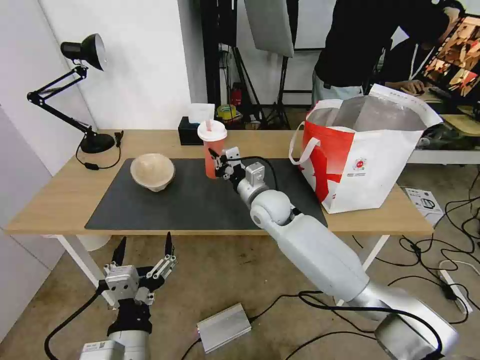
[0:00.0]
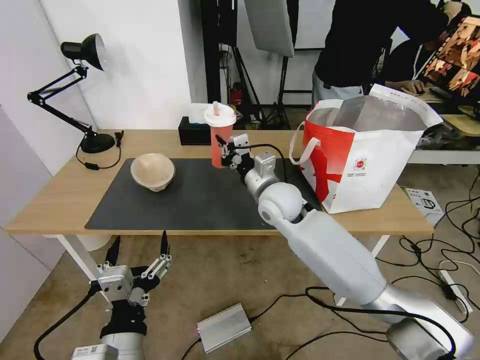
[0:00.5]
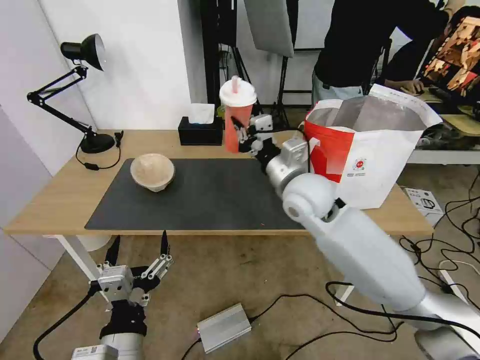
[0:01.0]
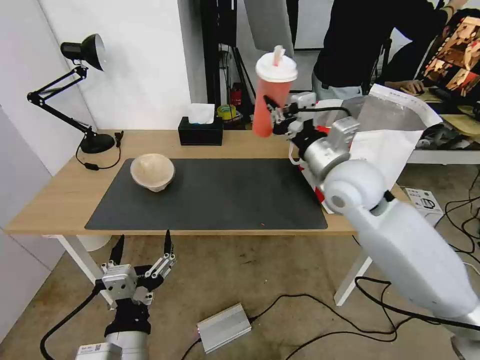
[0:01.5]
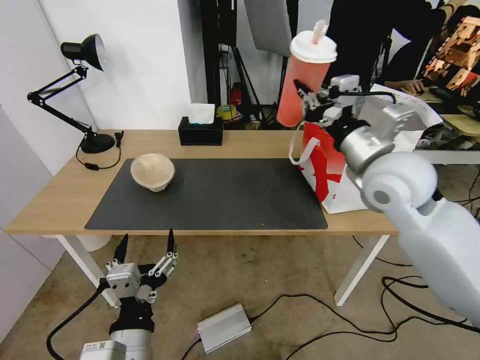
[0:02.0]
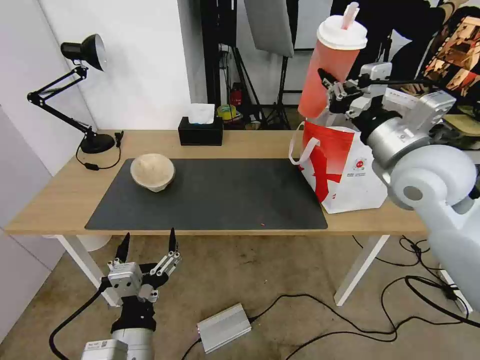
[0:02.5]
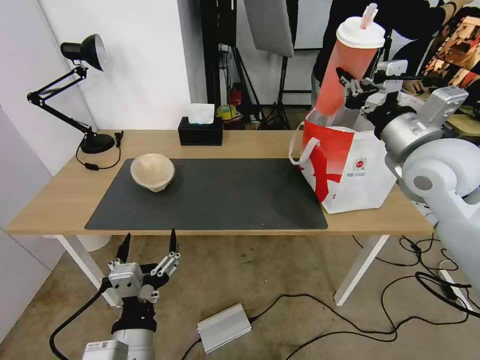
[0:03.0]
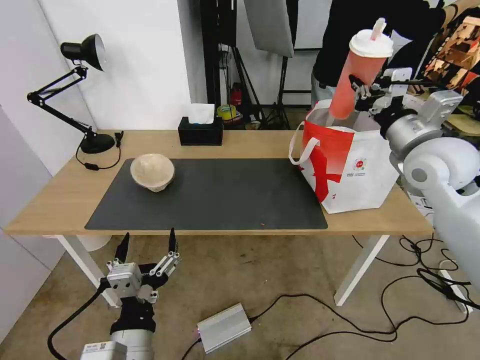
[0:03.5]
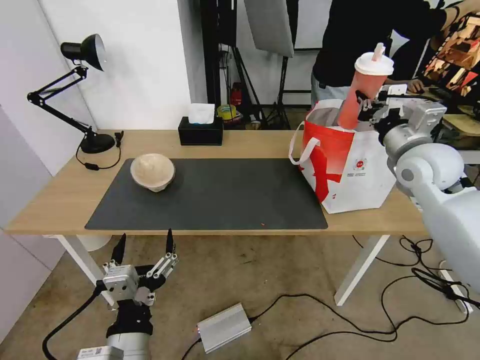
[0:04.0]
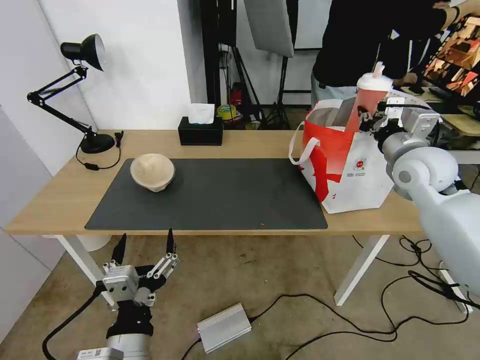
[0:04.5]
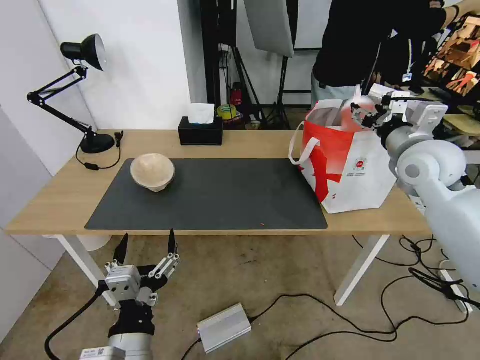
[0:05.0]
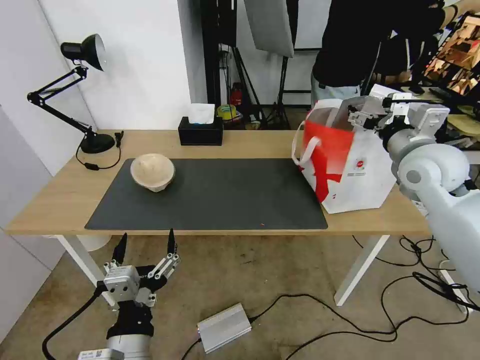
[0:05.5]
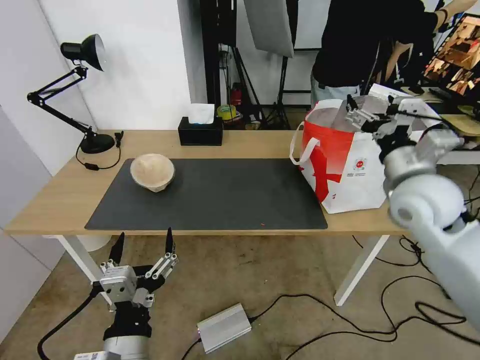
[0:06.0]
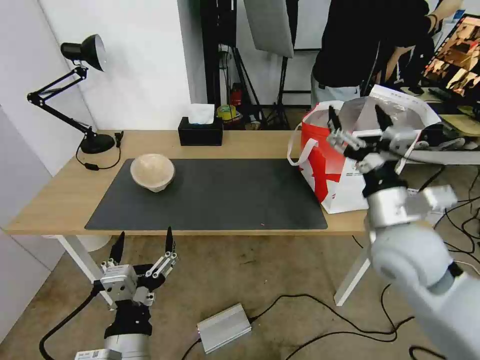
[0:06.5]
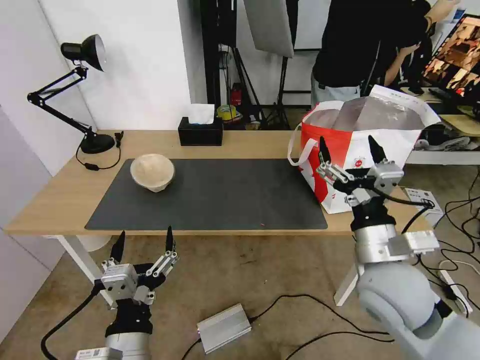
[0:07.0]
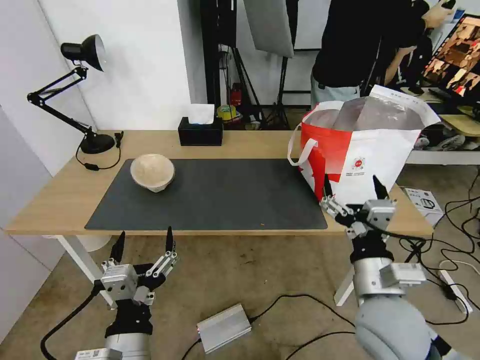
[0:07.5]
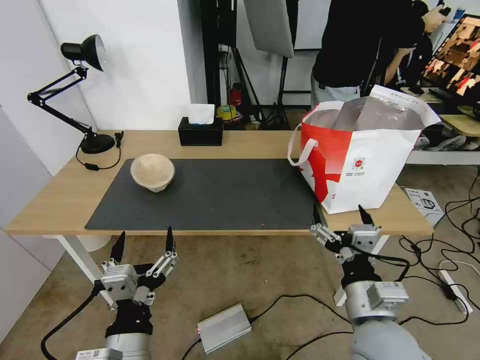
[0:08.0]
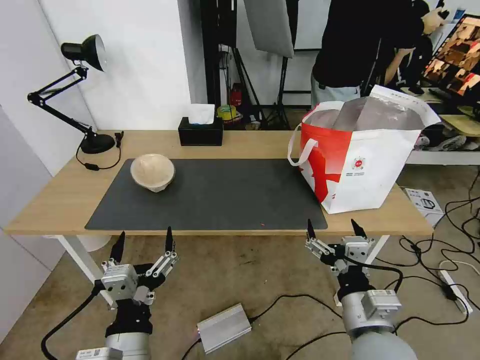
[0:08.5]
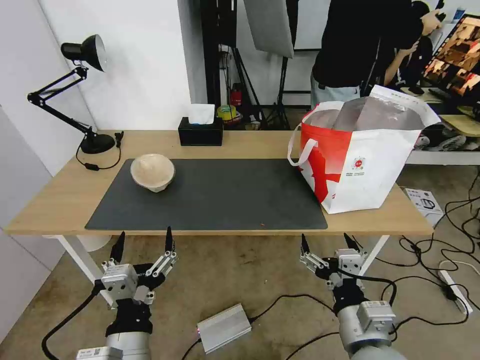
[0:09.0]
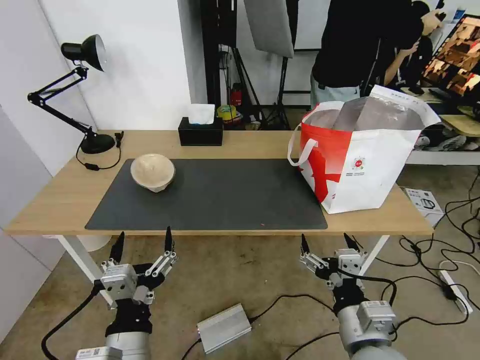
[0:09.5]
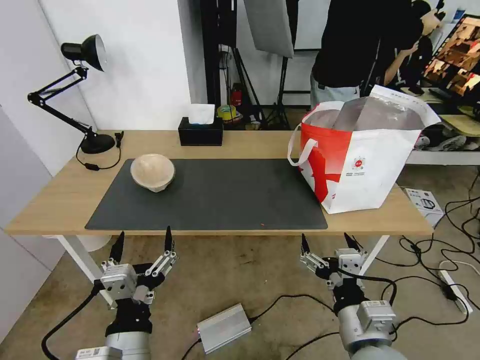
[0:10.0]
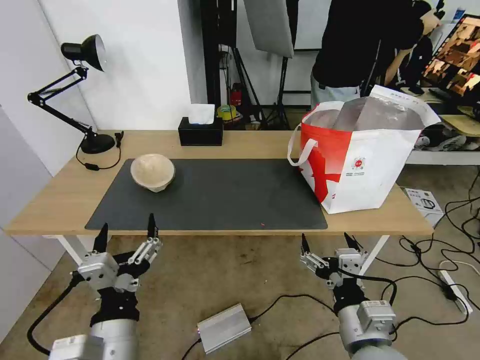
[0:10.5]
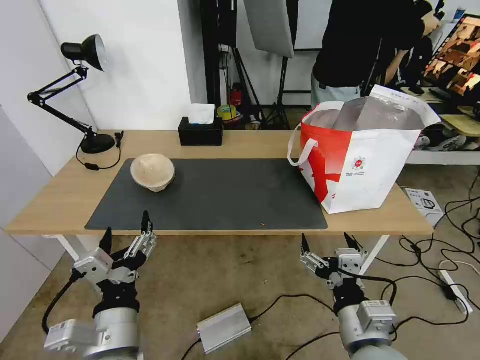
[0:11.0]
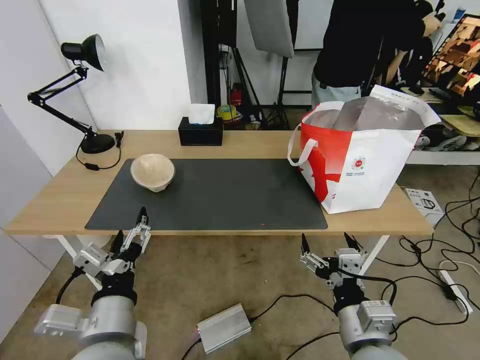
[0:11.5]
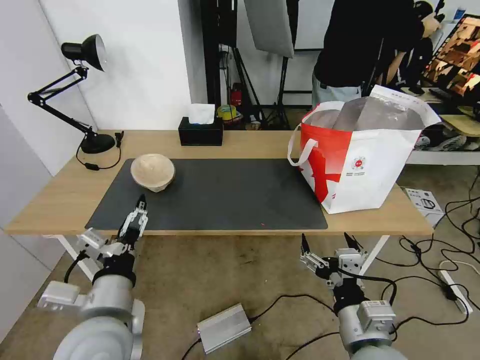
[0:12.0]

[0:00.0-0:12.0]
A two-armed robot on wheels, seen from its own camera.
Task of the whole recording: Pick up the trash from the table and place it into the takeout bag.
0:00.0 to 0:02.0: The right gripper shifts about 25 cm upward, to the right and backward.
0:02.0 to 0:04.0: The right gripper moves to the right and forward, about 15 cm.
0:04.0 to 0:06.0: The right gripper ends up roughly 5 cm from where it was, and opens.
0:06.0 to 0:08.0: The right gripper goes roughly 30 cm backward, downward and to the left.
0:08.0 to 0:10.0: There are only small adjustments of the grippers.
0:10.0 to 0:12.0: The left gripper goes some 5 cm forward.

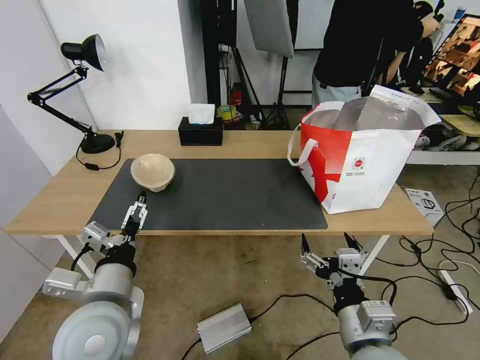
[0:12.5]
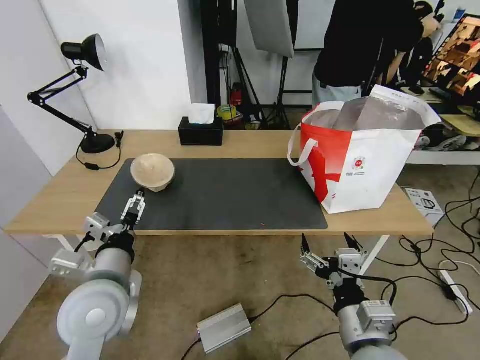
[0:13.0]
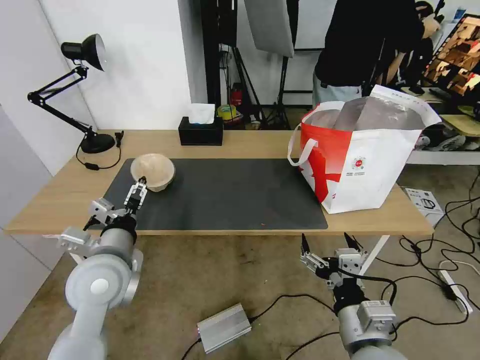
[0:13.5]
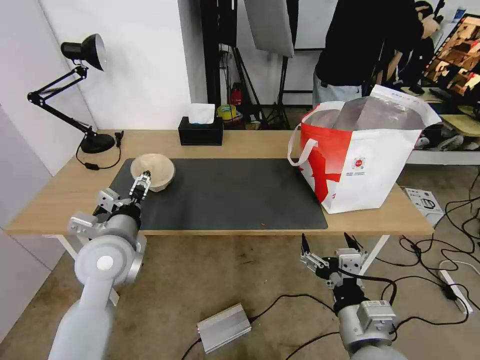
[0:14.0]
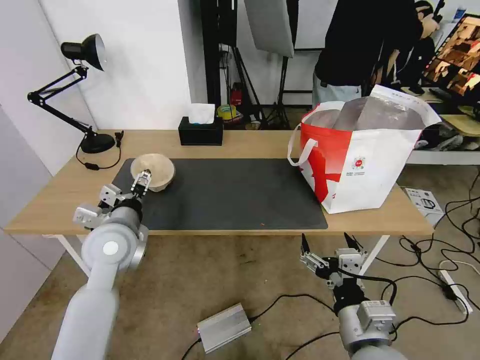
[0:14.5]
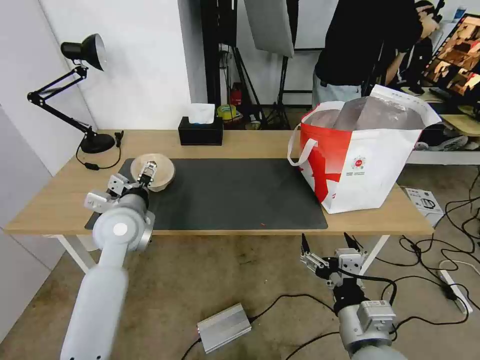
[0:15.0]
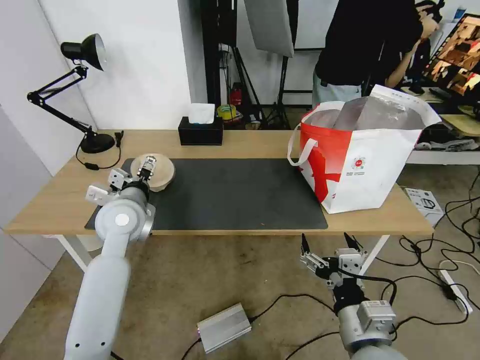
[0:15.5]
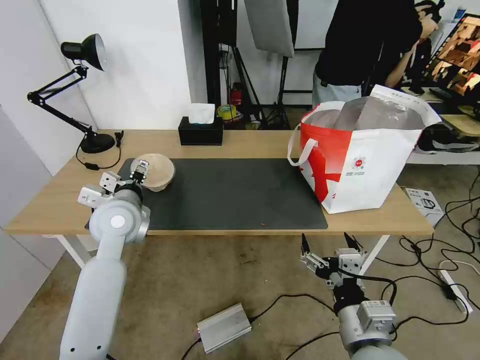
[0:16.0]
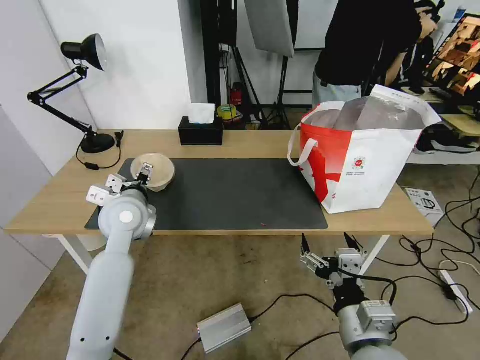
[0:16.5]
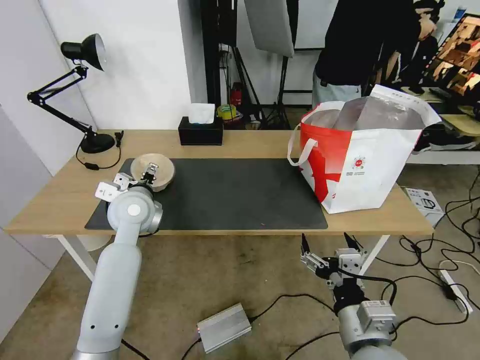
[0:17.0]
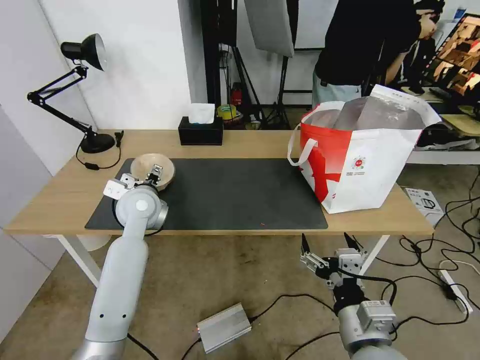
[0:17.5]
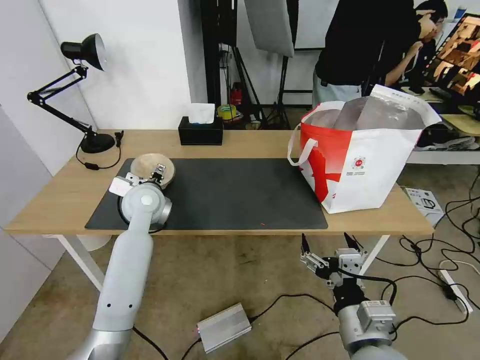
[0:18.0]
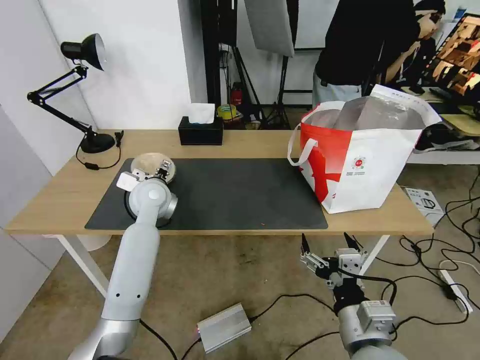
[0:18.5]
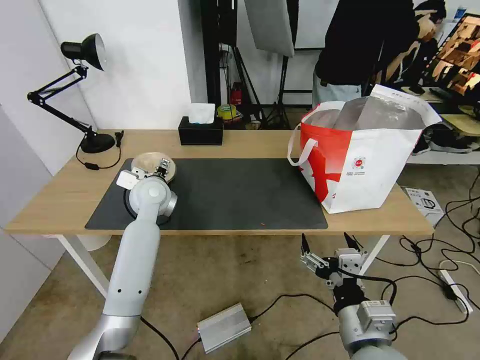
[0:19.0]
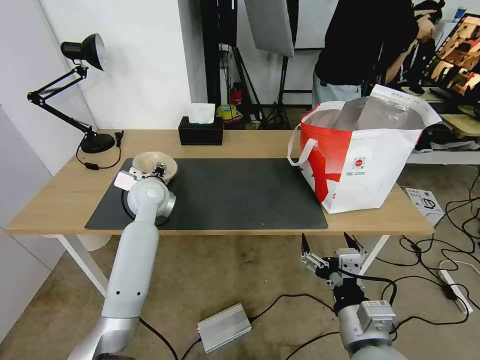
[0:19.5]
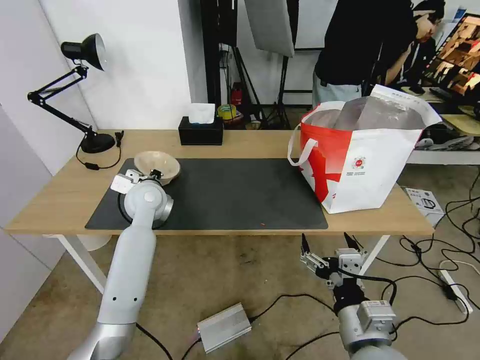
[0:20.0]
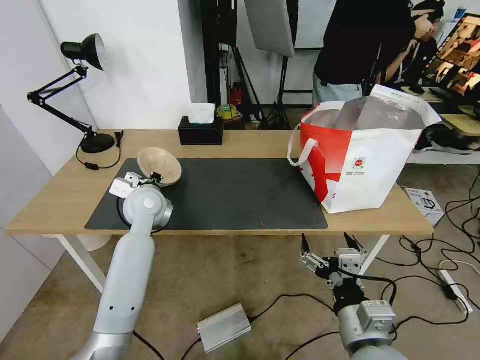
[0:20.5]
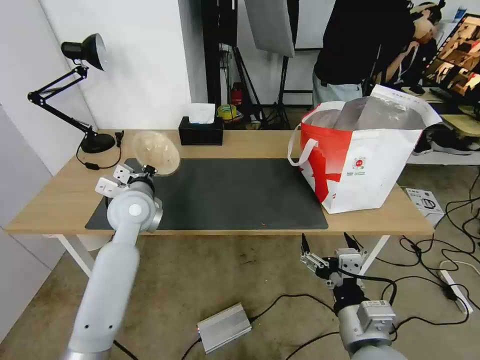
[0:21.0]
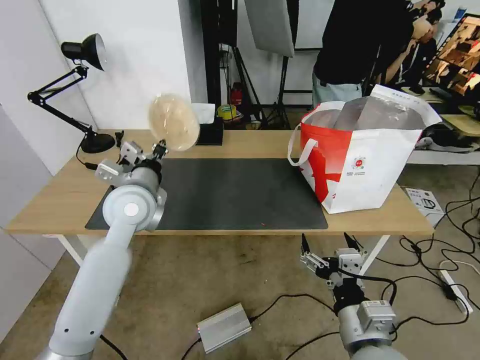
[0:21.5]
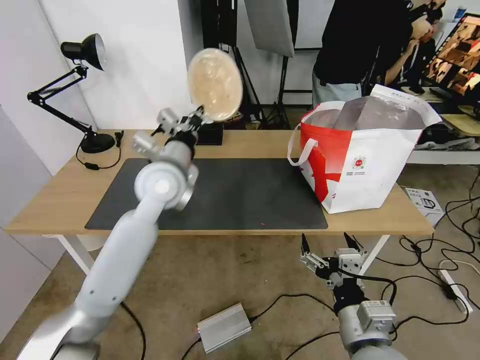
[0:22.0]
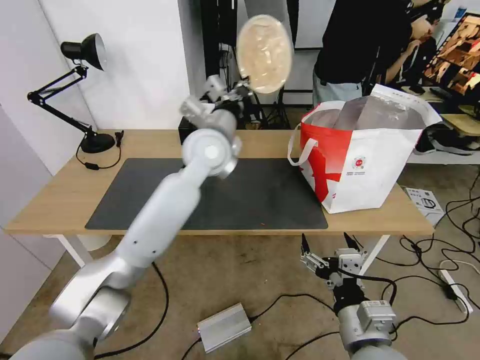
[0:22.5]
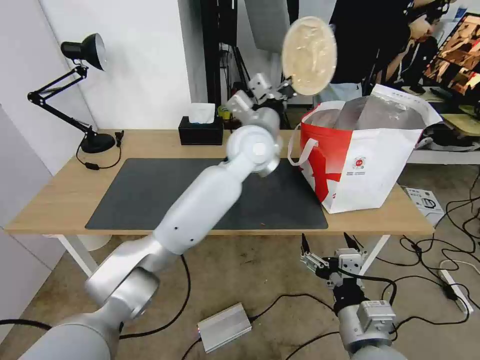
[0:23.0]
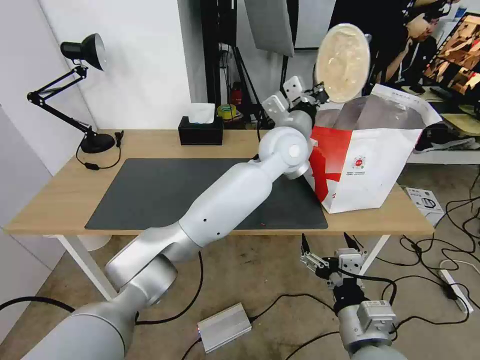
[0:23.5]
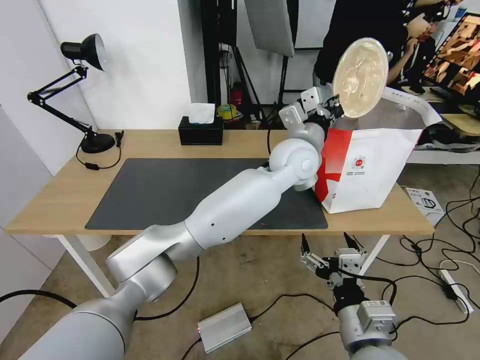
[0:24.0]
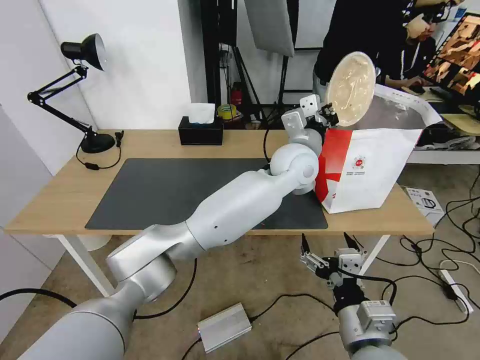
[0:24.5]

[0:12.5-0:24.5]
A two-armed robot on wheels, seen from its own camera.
Task of the whole recording: Pick up the trash from the table and place it into the takeout bag.
0:12.5 to 0:14.5: The left gripper heads forward, covering roughly 15 cm.
0:14.5 to 0:16.5: The left gripper travels forward by some 5 cm.
0:16.5 to 0:18.5: The left gripper is displaced forward by roughly 5 cm.
0:18.5 to 0:20.5: The left gripper closes.
0:20.5 to 0:22.5: The left gripper is displaced to the right and upward by some 20 cm.
0:22.5 to 0:24.5: The left gripper travels to the right by about 20 cm.

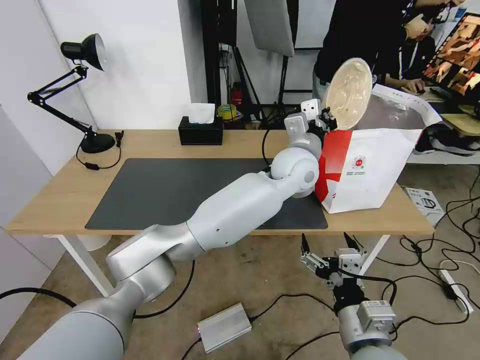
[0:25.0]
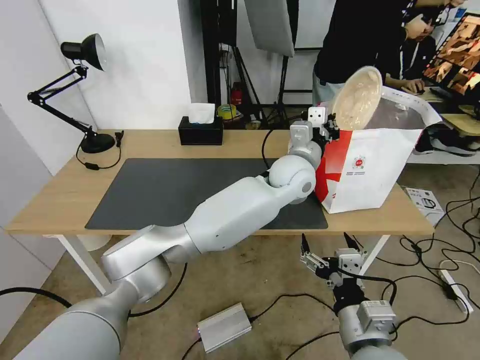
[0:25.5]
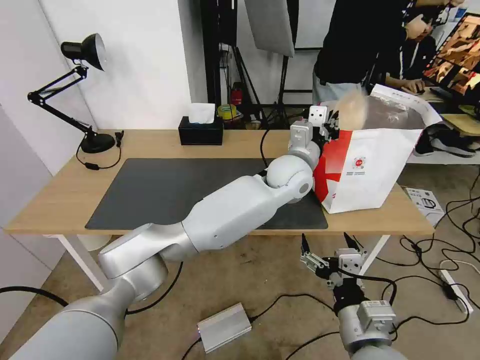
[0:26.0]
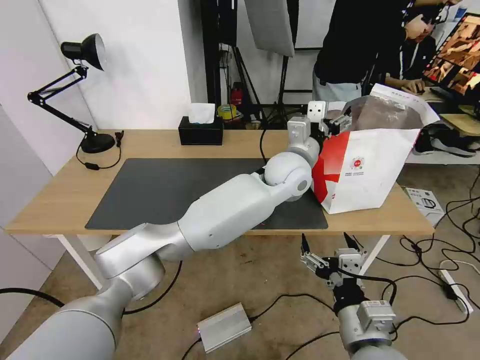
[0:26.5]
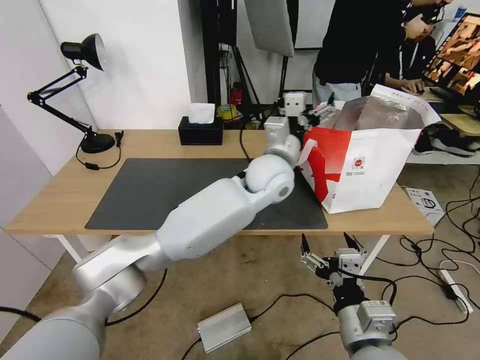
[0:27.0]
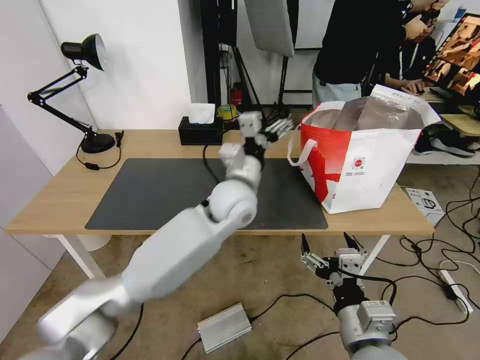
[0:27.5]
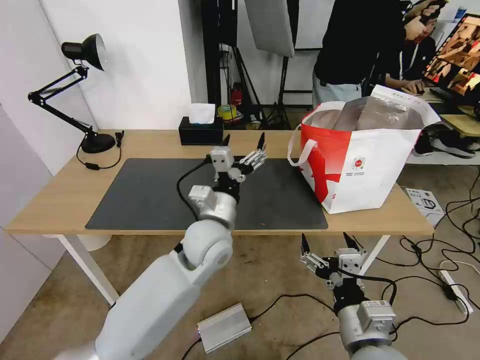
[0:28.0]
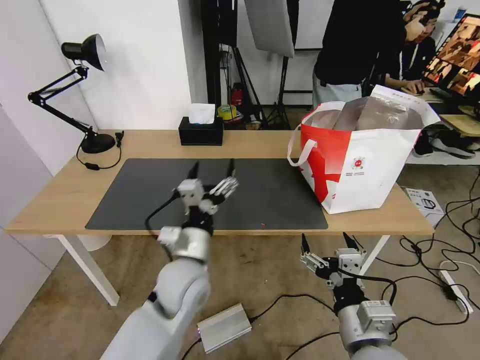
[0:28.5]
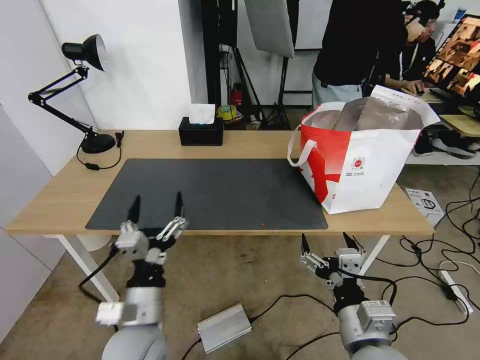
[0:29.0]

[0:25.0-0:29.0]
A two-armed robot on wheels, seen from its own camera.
Task of the whole recording: Pick up the trash from the table and place it into the takeout bag.
0:25.0 to 0:27.0: The left gripper heads to the left, covering about 5 cm, and opens up.
0:27.0 to 0:29.0: The left gripper moves backward, to the left and downward, about 40 cm.
